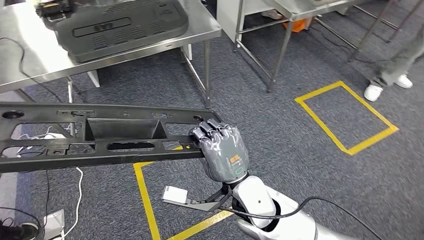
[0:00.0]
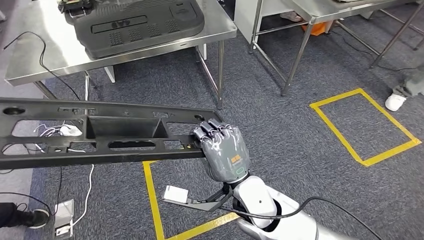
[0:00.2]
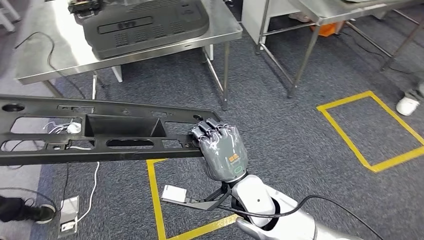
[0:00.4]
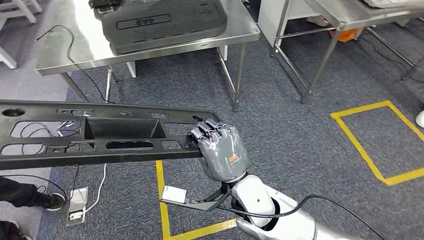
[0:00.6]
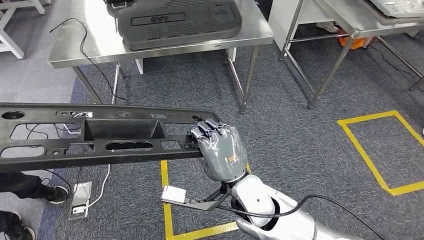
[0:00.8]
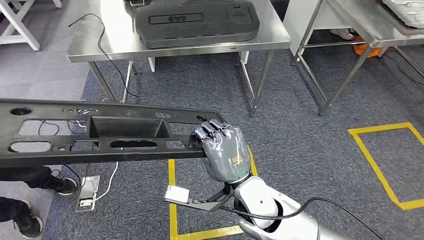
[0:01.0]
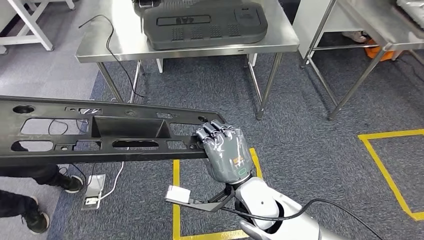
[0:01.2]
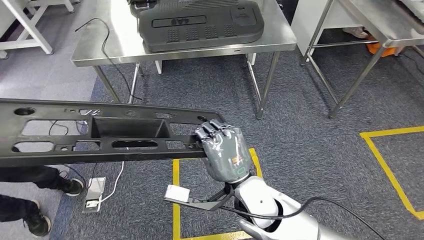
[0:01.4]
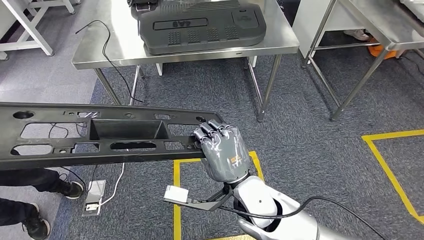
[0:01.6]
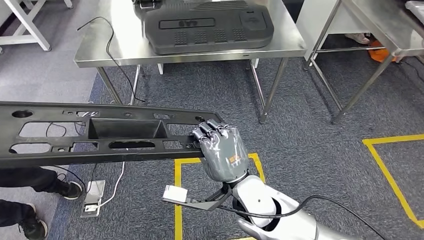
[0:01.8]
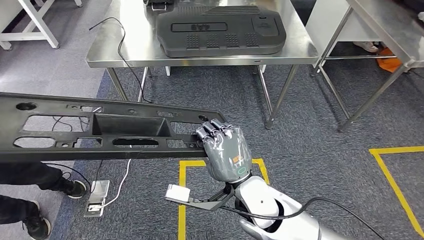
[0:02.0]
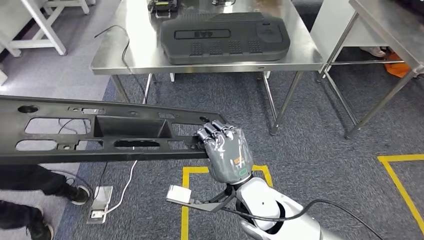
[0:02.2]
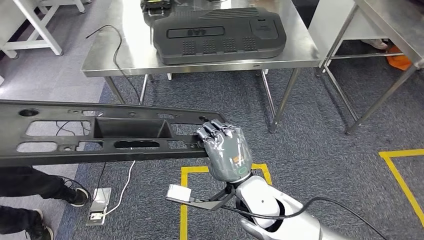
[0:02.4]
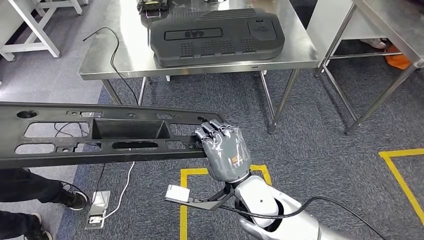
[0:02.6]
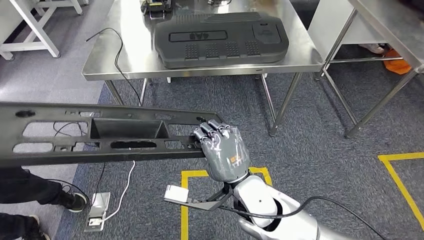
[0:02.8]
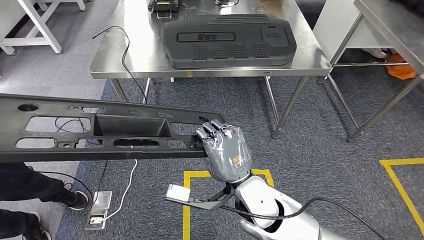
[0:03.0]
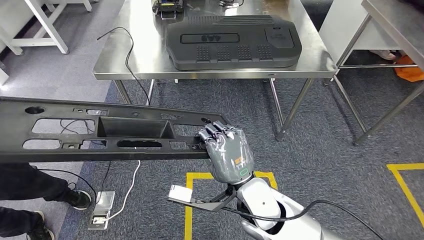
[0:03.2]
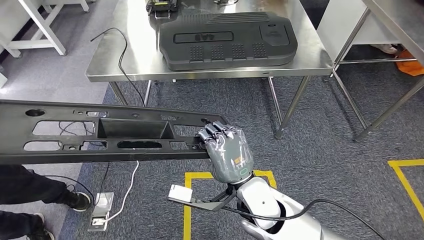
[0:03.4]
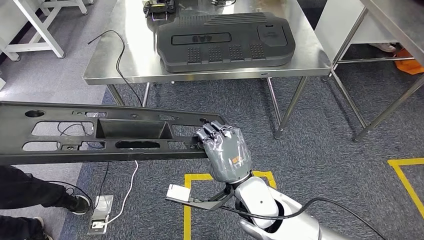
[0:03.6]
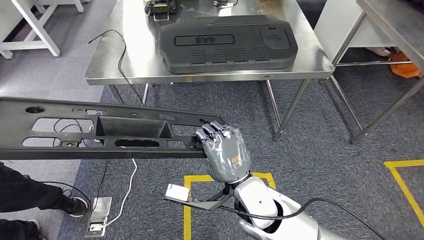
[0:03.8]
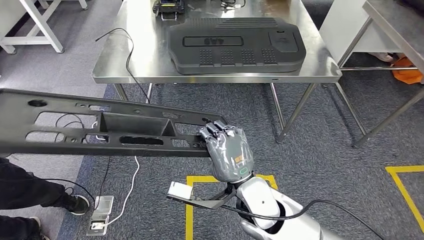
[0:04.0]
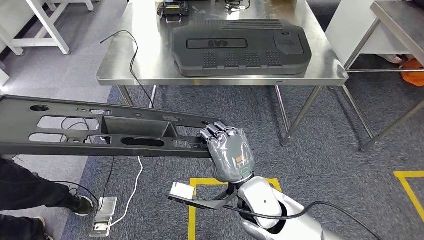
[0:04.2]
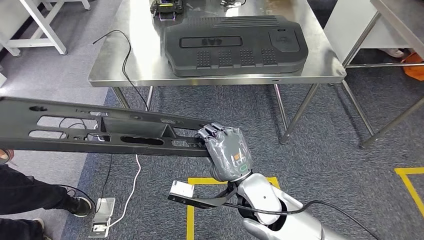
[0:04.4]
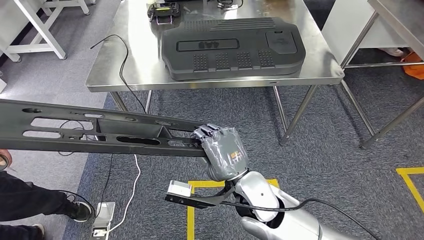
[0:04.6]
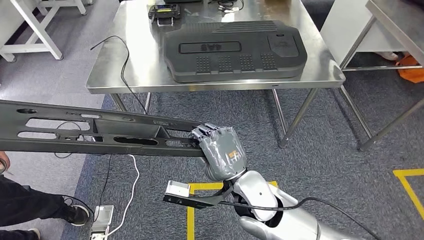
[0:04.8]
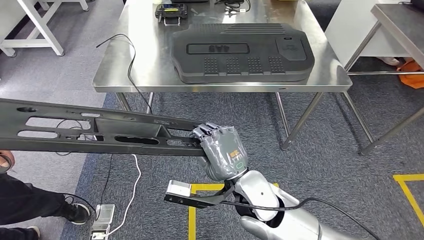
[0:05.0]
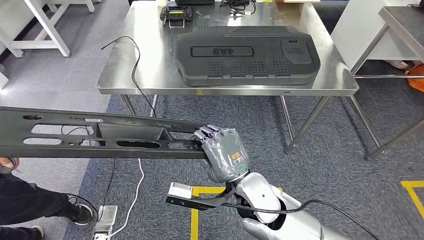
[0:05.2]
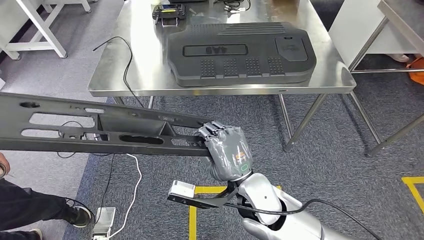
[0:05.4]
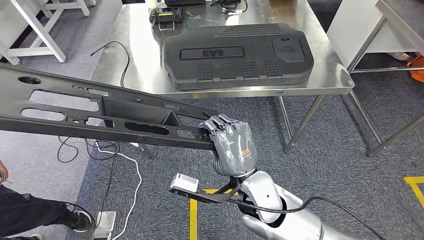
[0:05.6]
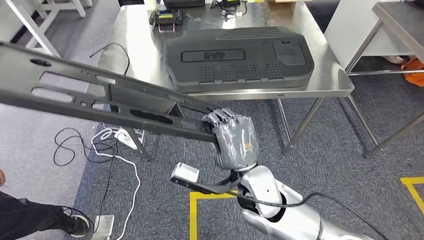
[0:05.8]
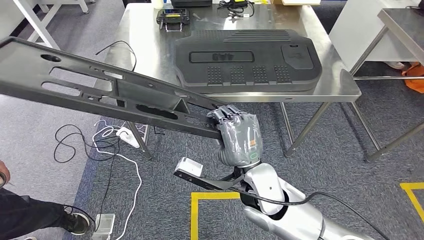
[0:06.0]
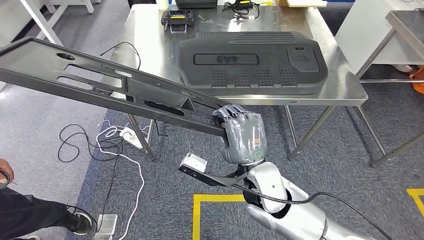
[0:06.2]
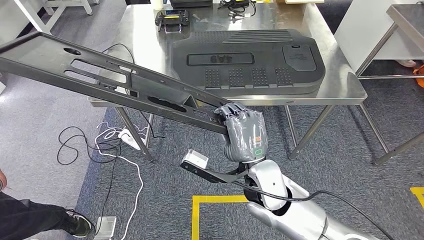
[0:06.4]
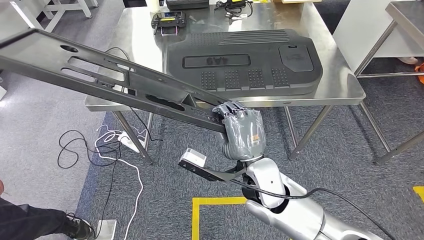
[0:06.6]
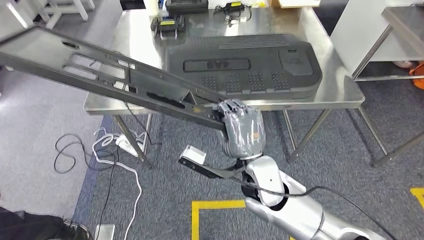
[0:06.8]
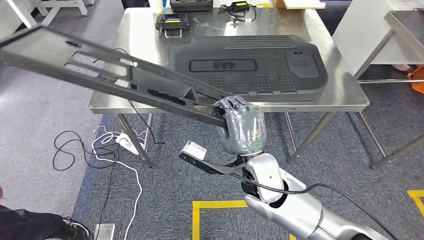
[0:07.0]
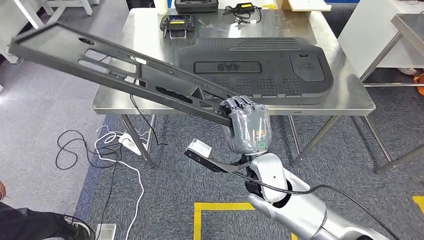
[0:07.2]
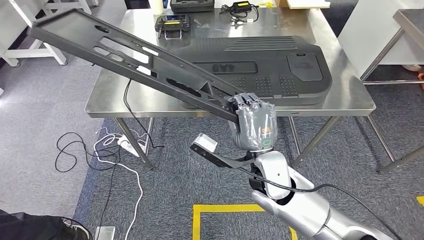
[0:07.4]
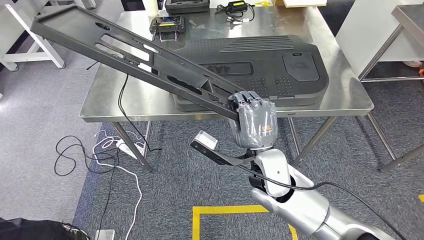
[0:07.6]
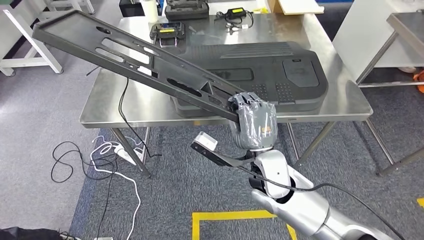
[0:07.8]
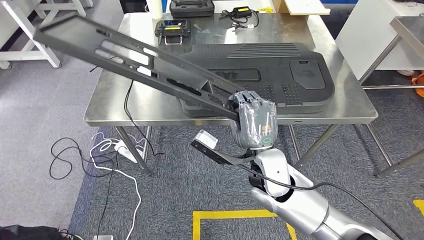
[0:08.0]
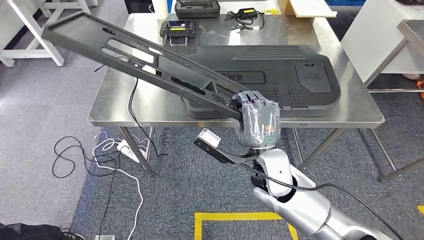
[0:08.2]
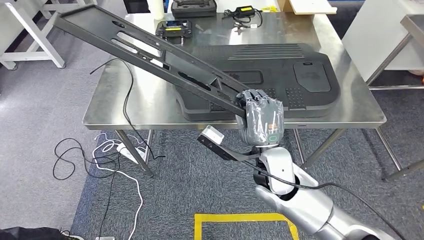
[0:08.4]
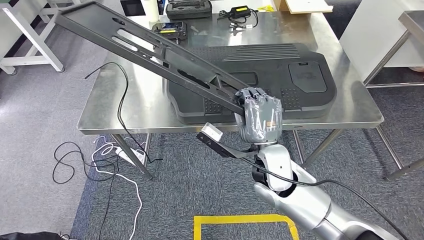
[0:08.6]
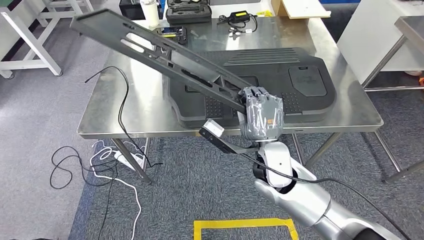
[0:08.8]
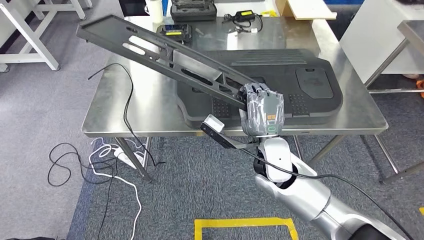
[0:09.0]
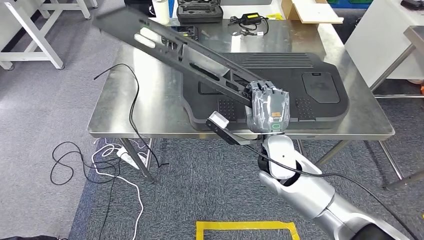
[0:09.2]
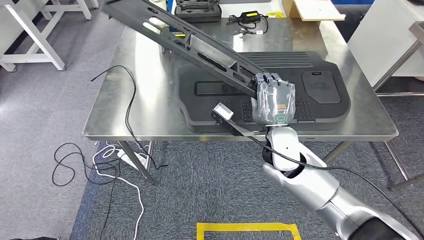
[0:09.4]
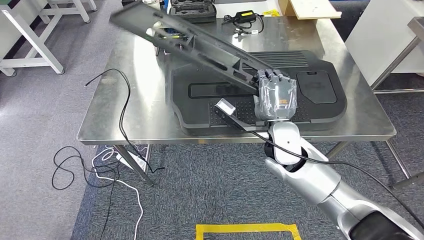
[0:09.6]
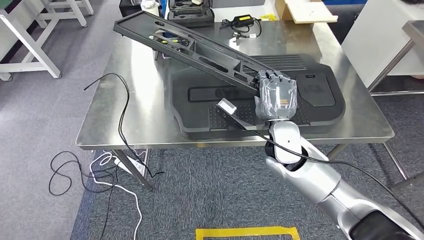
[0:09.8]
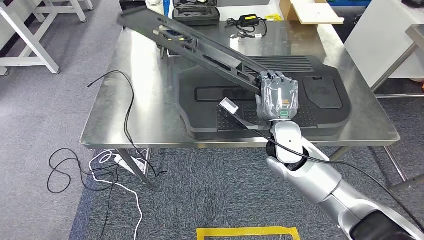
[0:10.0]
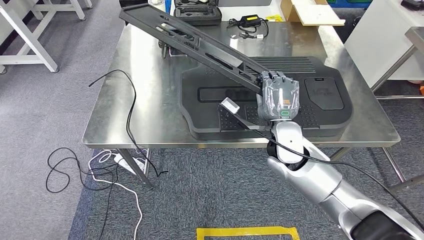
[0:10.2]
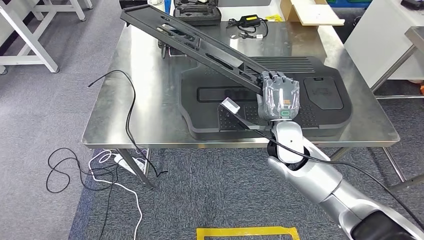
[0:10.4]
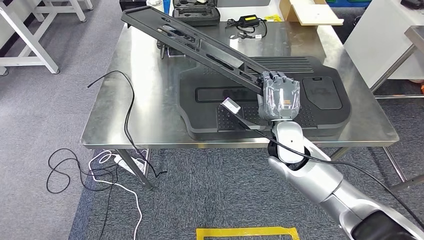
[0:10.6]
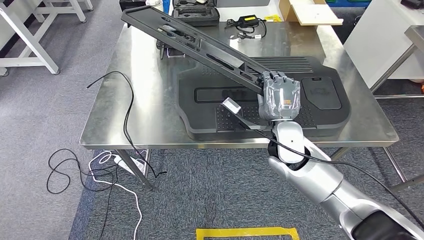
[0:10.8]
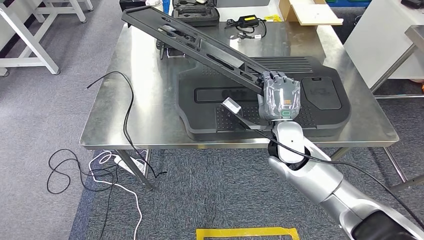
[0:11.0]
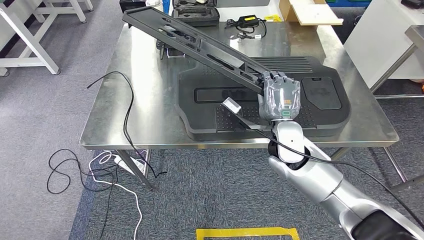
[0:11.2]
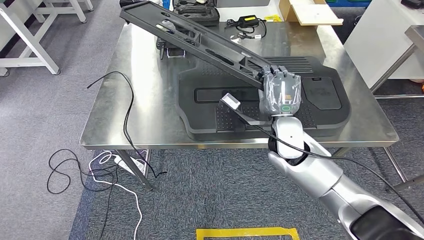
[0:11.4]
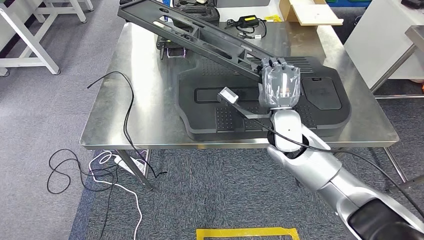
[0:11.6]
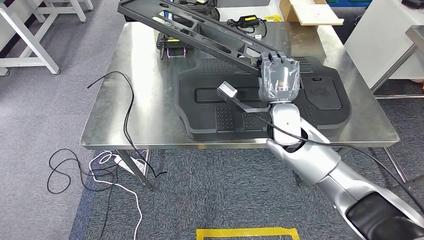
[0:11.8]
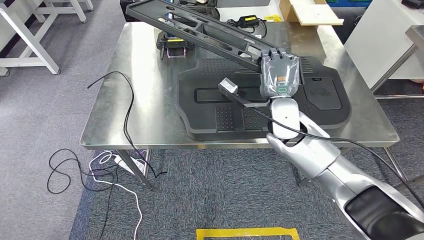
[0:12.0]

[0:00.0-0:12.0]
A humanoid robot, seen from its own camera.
Step, 0:00.0 to 0:07.2: Move the large material to the workbench.
0:10.4 to 0:12.0: The right hand shifts by some 5 cm.

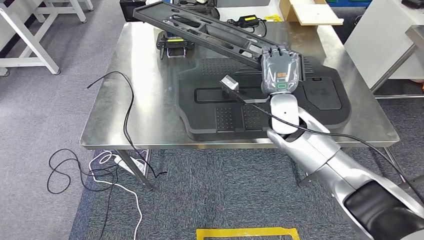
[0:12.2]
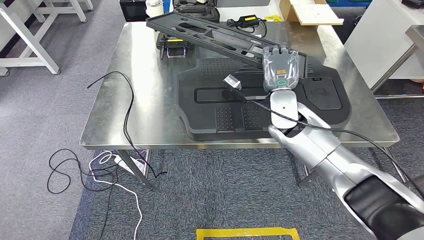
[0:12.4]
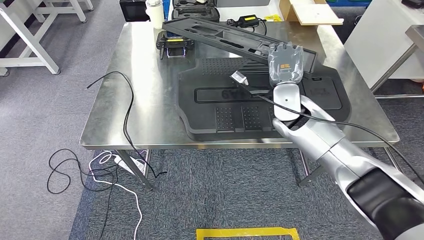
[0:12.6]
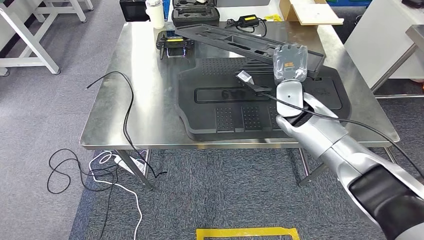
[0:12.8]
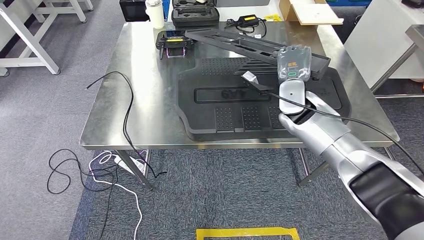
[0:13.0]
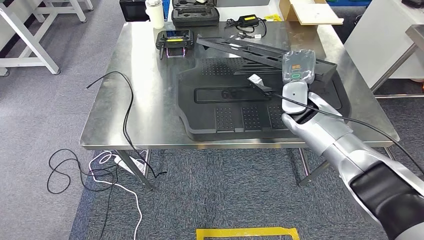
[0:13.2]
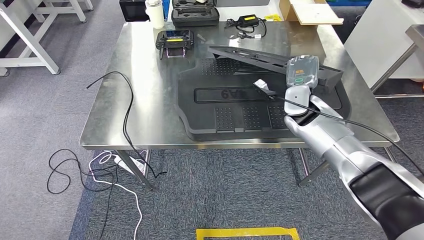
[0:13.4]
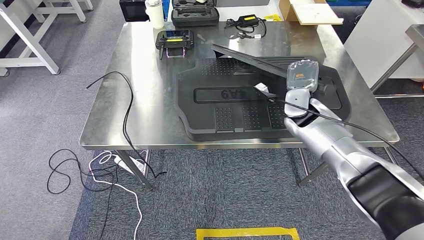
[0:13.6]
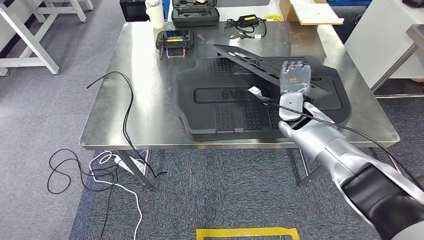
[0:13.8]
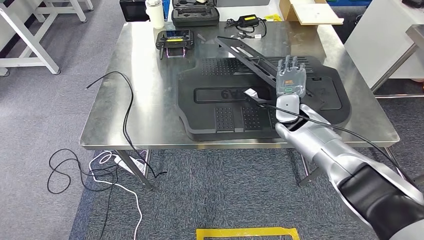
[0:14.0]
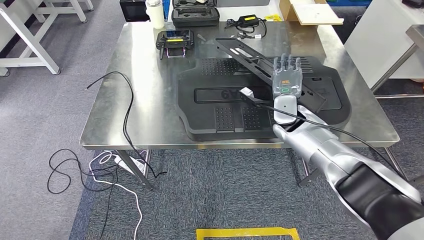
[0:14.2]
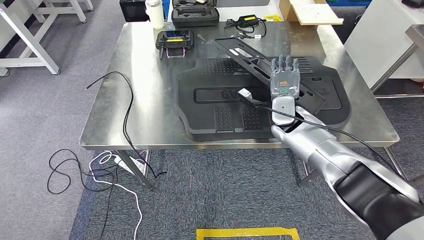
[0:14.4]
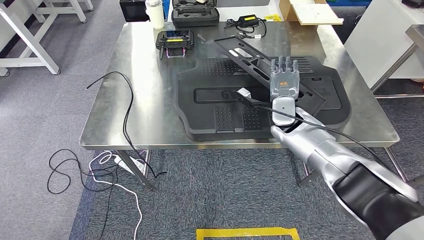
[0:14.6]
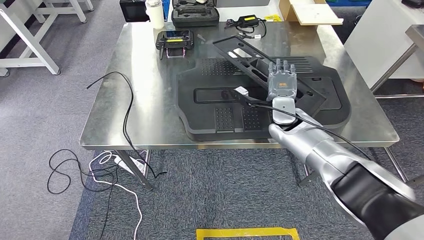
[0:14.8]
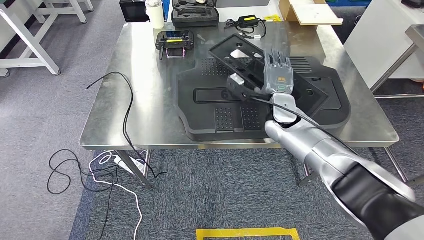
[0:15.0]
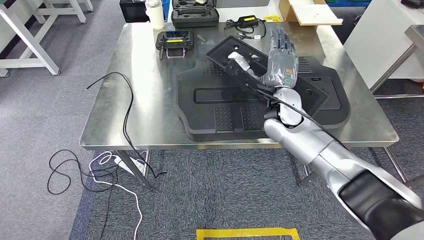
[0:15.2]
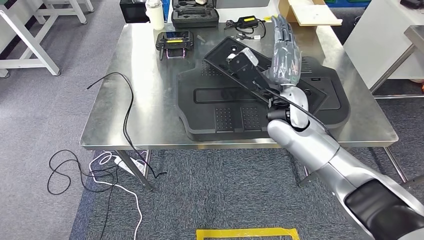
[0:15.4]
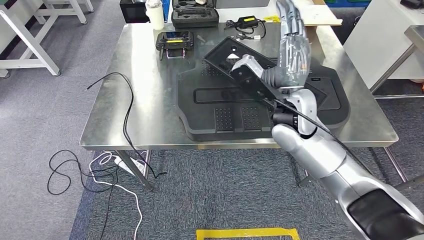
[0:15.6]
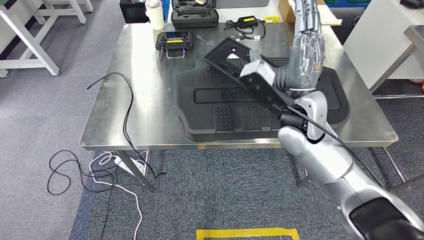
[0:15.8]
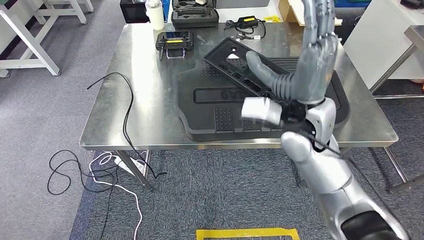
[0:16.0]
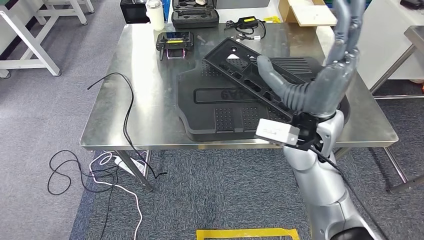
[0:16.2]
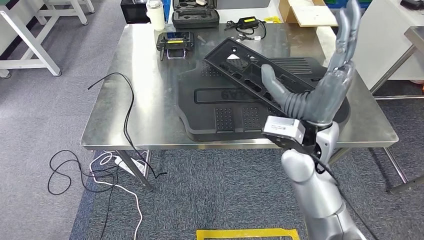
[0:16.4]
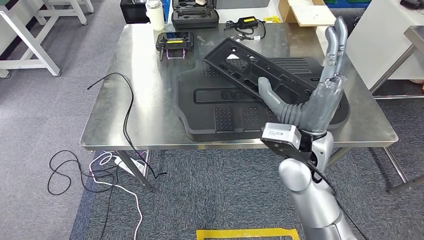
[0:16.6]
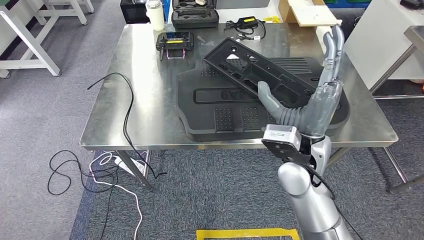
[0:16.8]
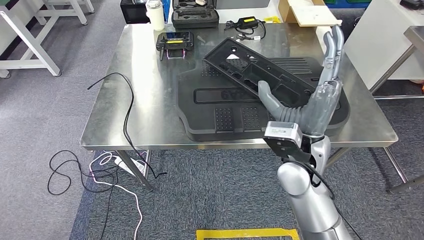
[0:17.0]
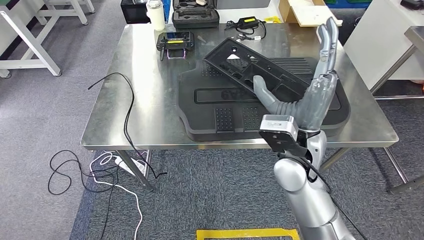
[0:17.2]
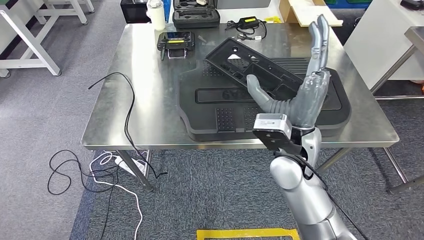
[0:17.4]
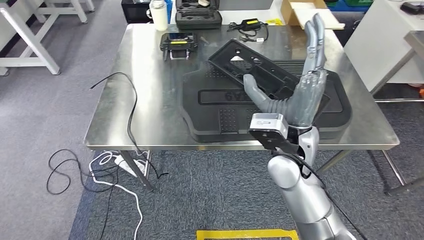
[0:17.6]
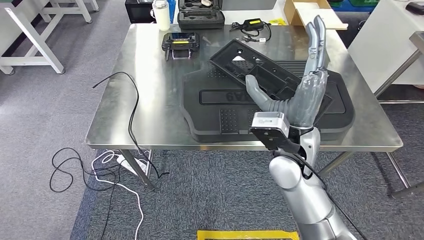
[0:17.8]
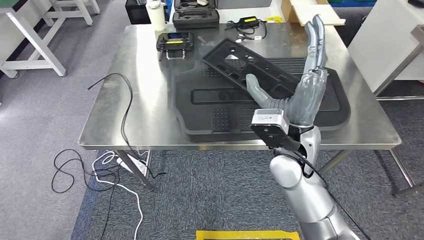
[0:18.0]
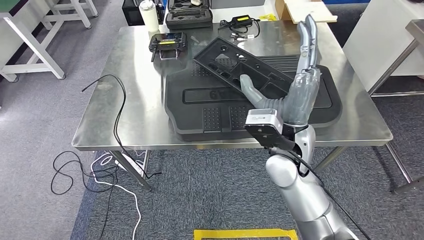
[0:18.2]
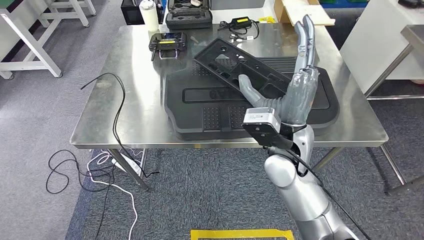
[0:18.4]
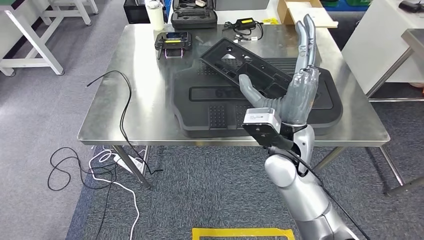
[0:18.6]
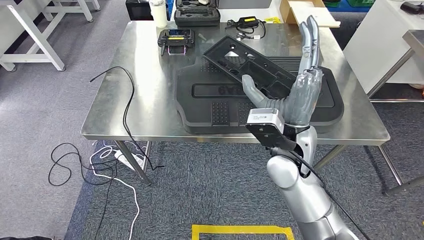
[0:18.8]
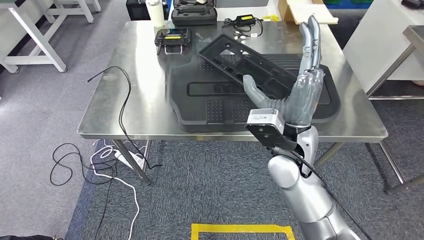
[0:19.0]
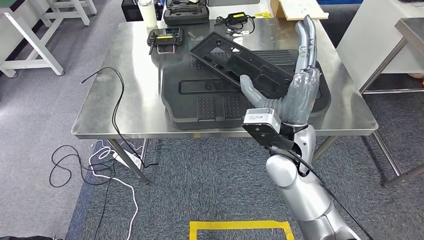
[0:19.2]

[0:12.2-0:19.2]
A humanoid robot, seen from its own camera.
0:12.2 to 0:13.6: The right hand goes about 5 cm to the right.
0:13.6 to 0:15.0: The right hand heads to the left, covering about 5 cm.
